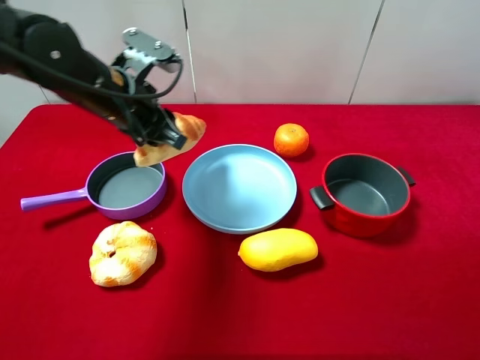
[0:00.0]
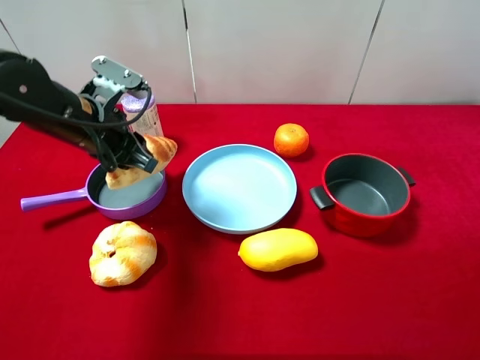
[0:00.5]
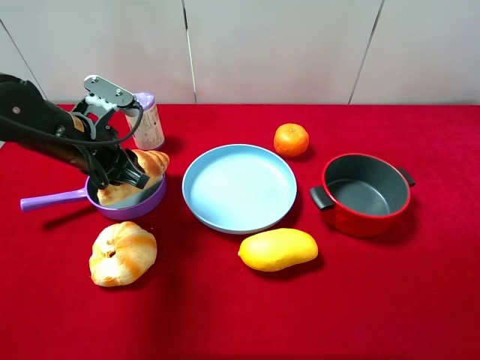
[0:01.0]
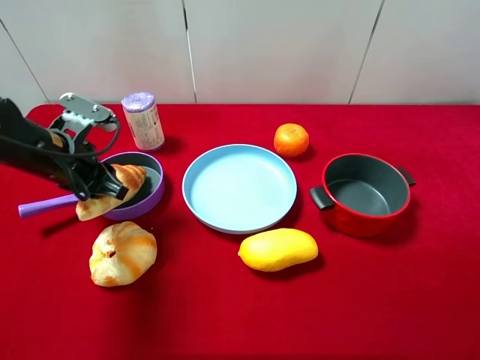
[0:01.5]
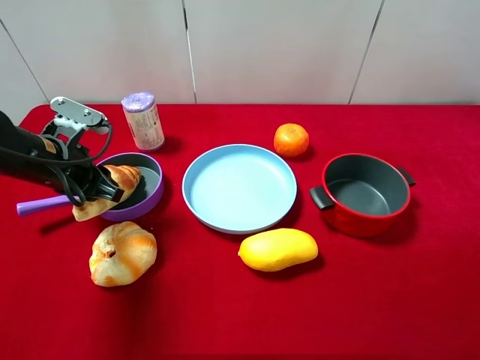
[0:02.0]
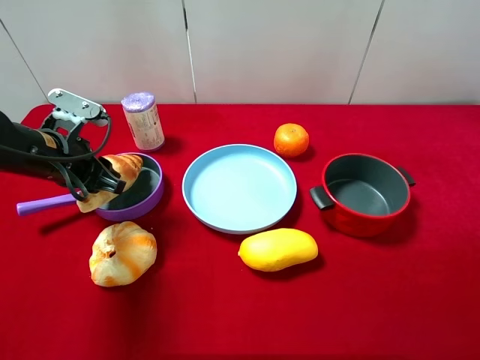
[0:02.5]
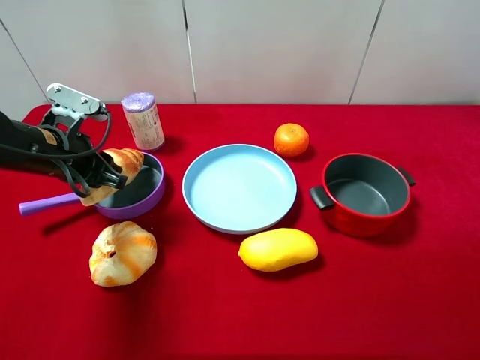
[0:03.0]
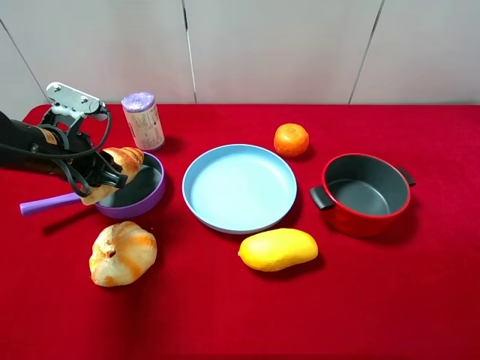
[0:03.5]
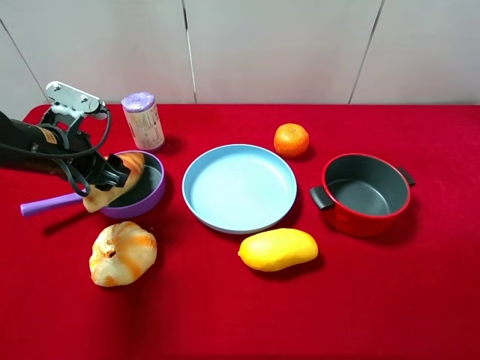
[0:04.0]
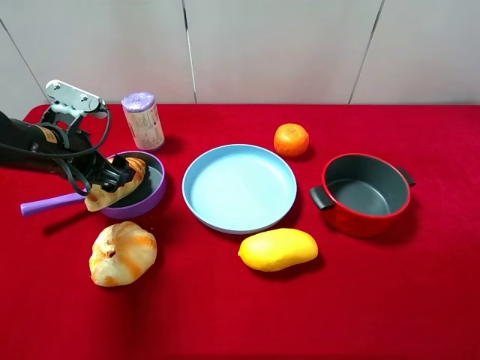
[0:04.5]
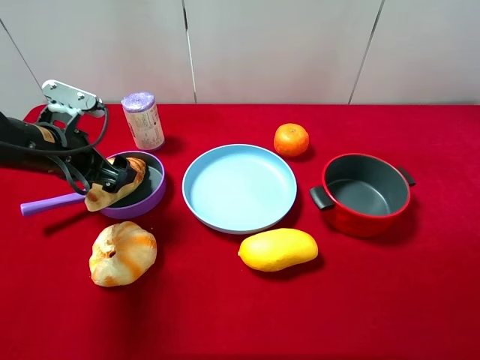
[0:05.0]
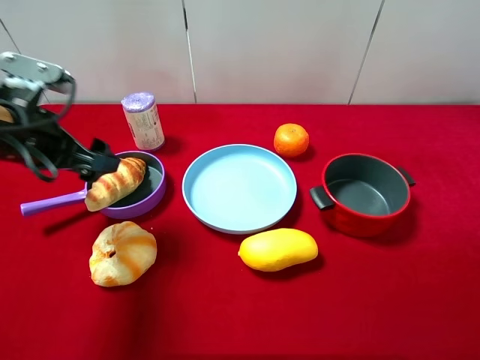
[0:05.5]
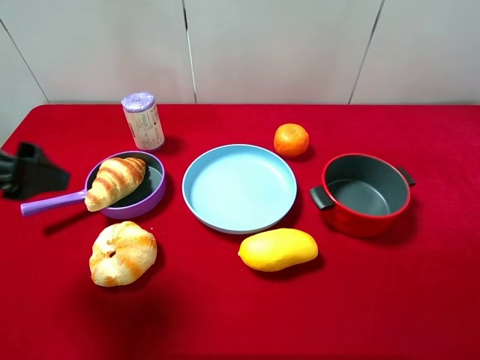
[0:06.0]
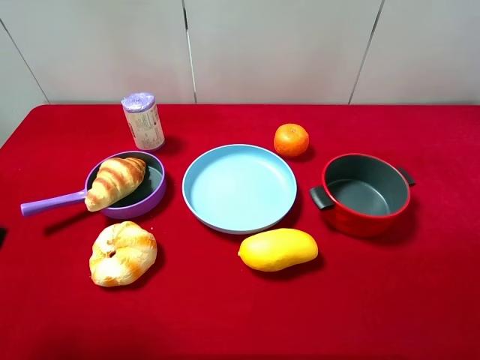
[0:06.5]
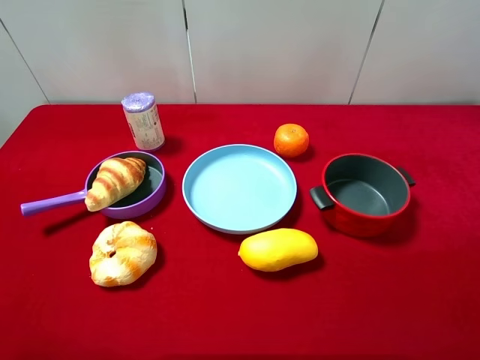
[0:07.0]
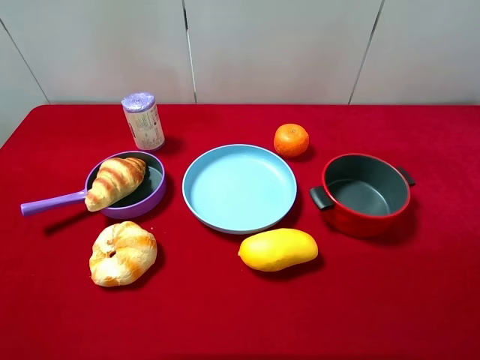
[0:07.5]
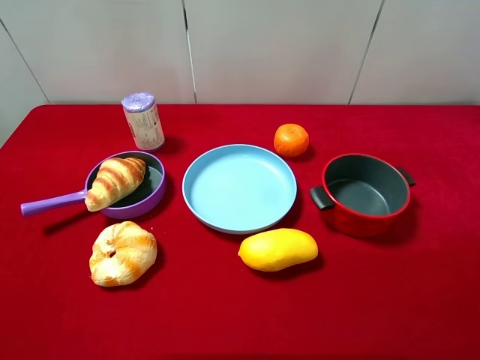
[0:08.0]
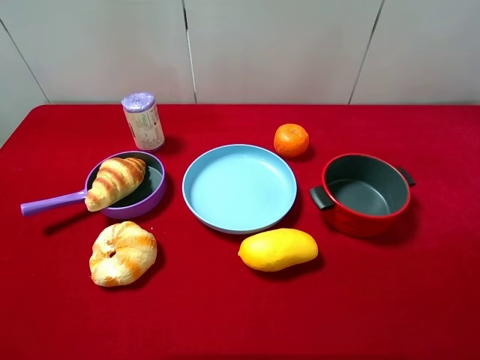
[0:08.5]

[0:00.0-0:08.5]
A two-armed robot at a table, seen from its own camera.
Task of the whole recording: pick up an item with a gripper and place it in a random container on the desktop.
0:00.0 to 0:02.0: The left gripper shifts about 10 cm to the left and downward.
0:02.0 to 0:04.0: The left gripper opens its fingers.
0:04.0 to 0:06.5: The left gripper goes approximately 20 cm backward and upward, and opens up.

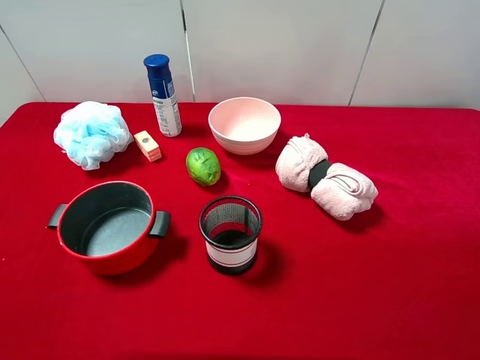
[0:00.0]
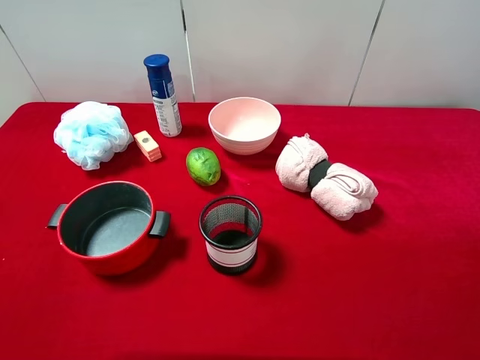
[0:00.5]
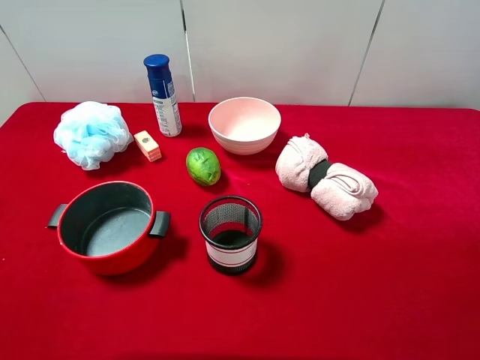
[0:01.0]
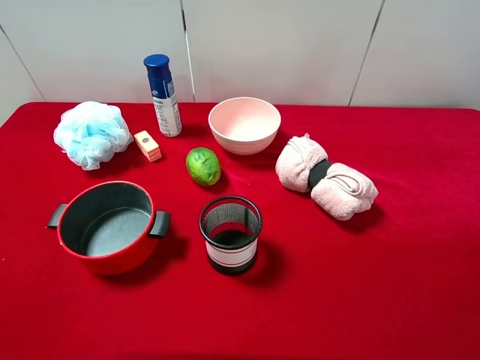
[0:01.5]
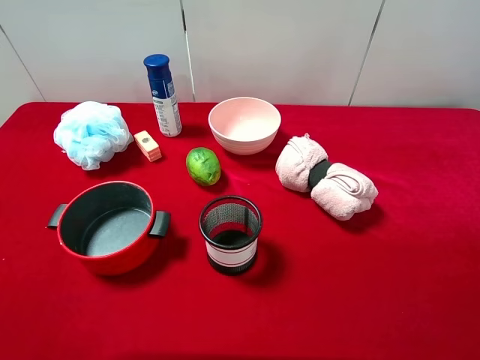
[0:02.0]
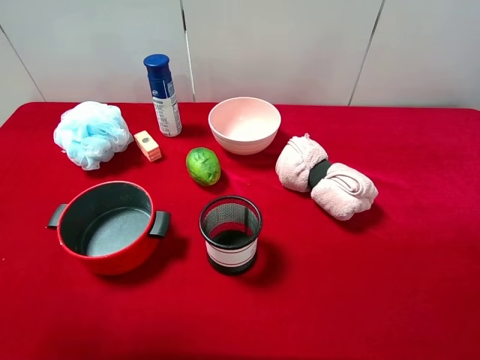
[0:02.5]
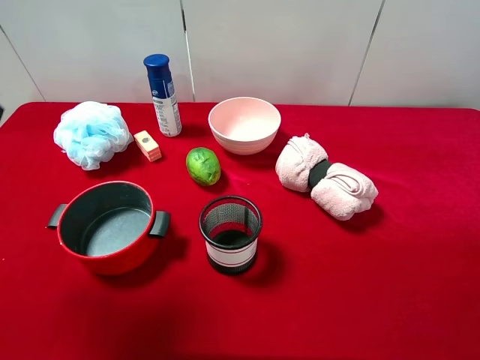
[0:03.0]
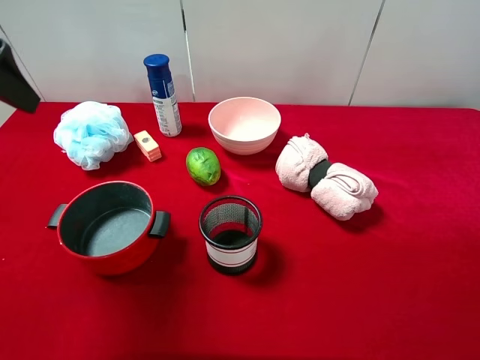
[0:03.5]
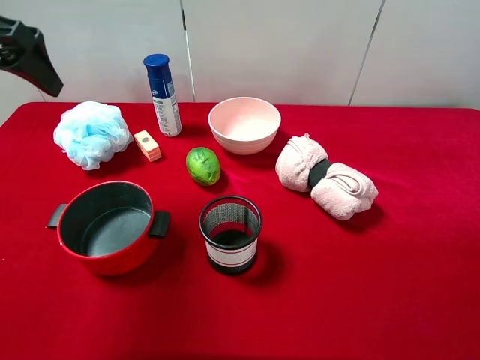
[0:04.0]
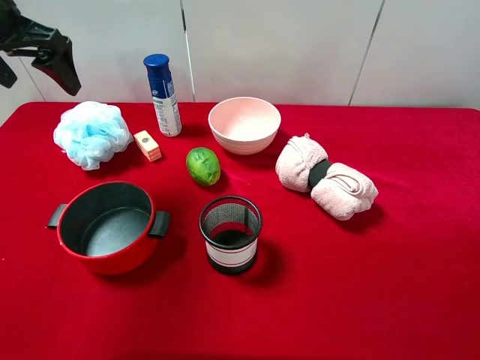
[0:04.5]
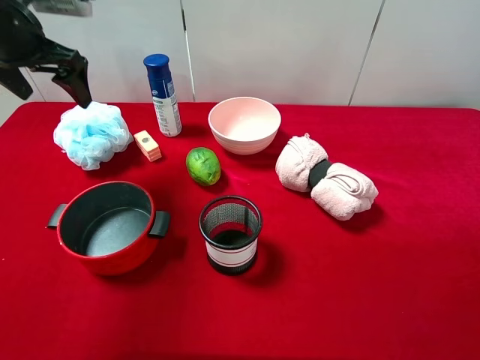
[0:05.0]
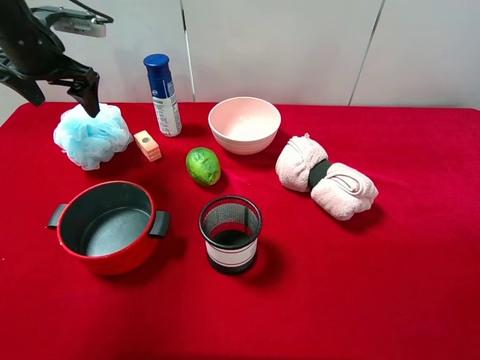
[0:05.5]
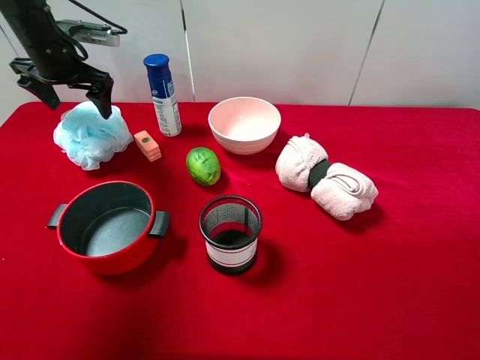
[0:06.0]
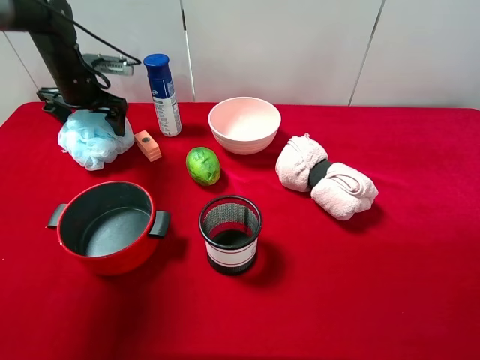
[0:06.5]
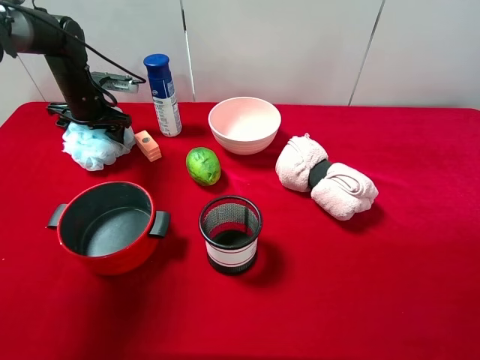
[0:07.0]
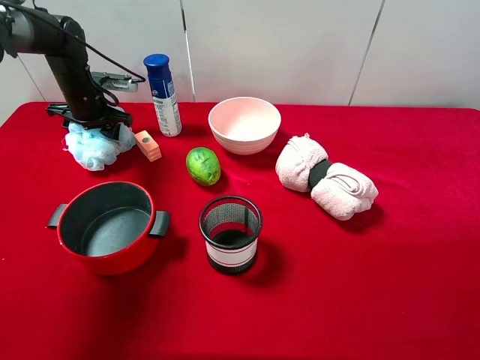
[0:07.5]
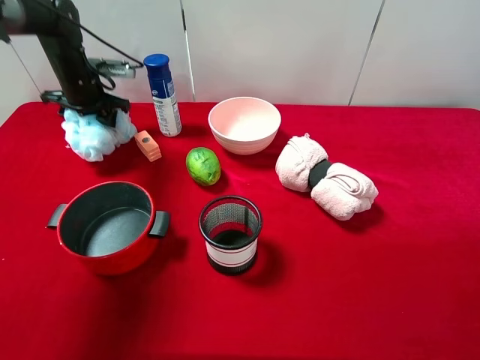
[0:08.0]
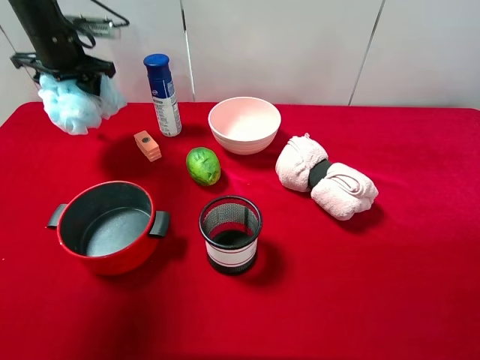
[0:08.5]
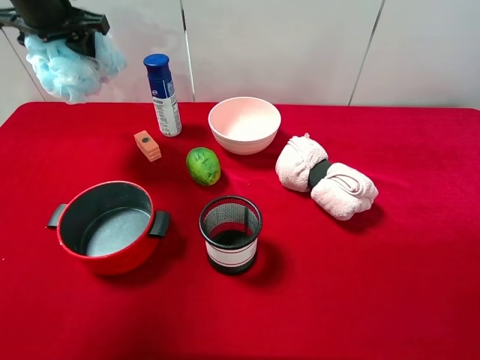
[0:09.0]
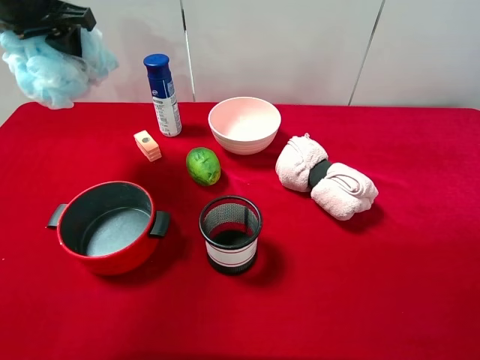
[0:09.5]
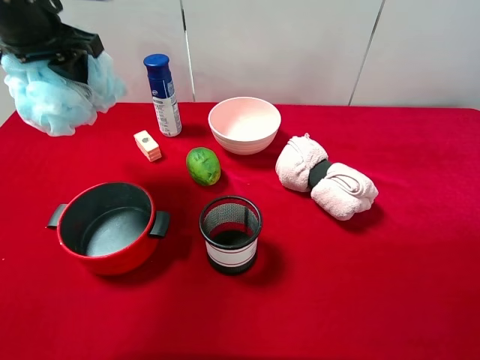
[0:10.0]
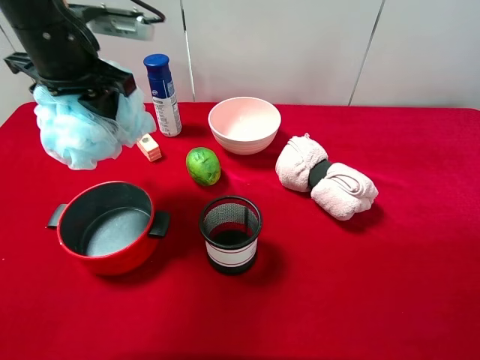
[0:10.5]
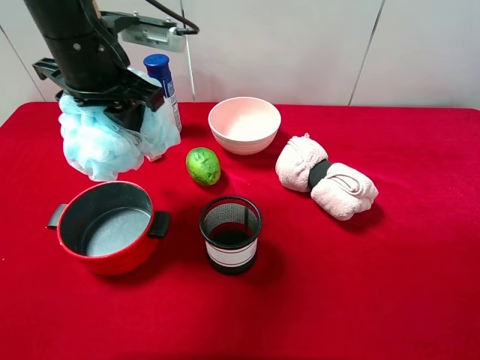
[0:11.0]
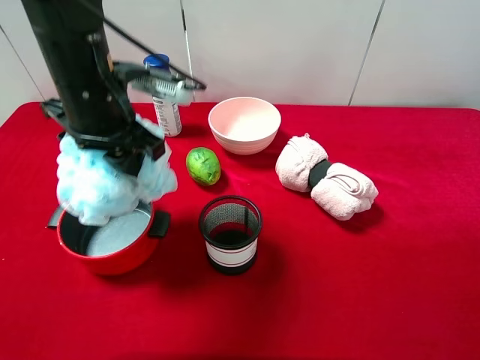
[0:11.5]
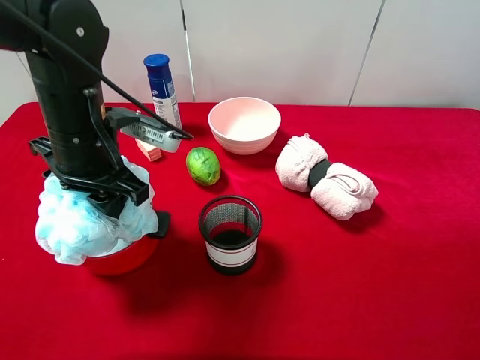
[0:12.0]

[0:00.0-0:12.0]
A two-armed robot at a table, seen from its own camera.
Task of the whole recording: pick up an item with a gripper and place it in a random container on the desktop.
0:02.0 to 0:04.0: The left gripper heads forward, covering about 25 cm.
0:04.0 to 0:06.0: The left gripper moves forward and downward, roughly 20 cm.
0:06.0 to 0:08.0: The left gripper travels downward by some 5 cm, and closes up.
0:08.0 to 0:10.0: The left gripper heads upward and backward, covering roughly 20 cm.
0:10.0 to 0:12.0: The left gripper moves downward, backward and to the right, approximately 15 cm.

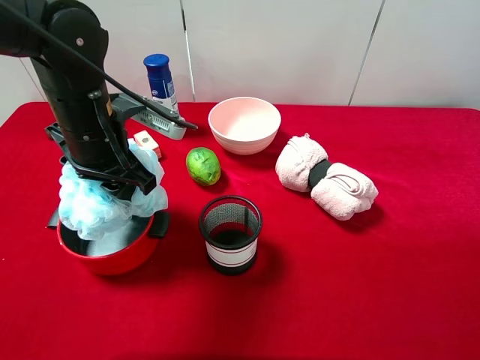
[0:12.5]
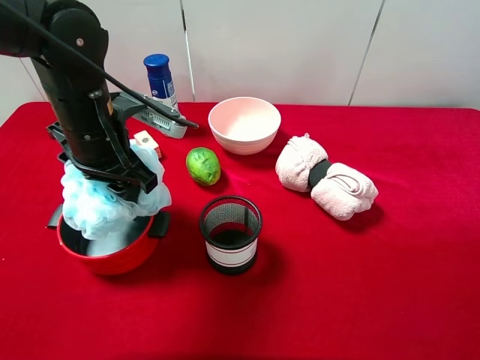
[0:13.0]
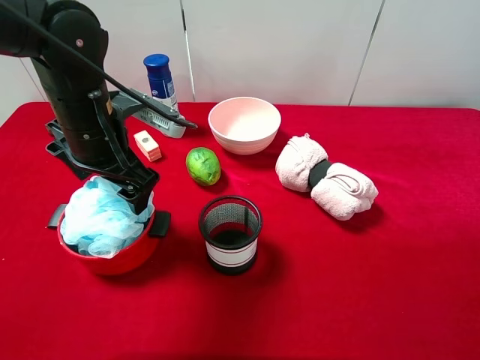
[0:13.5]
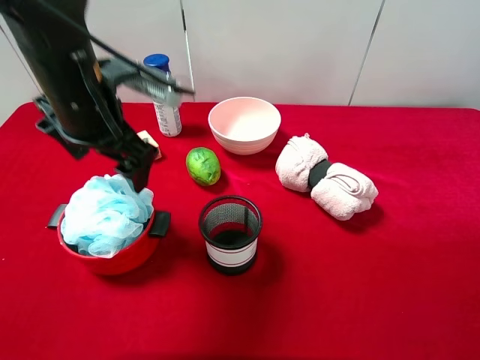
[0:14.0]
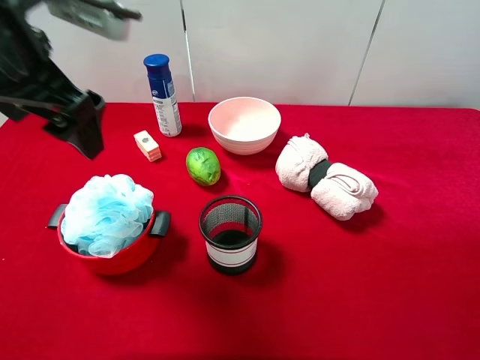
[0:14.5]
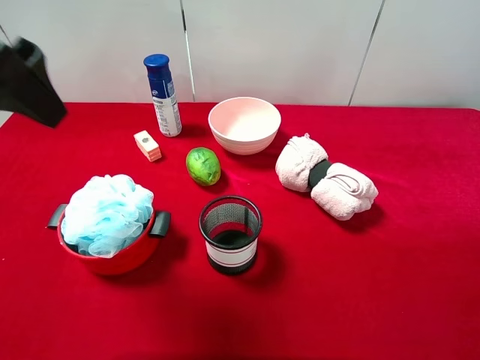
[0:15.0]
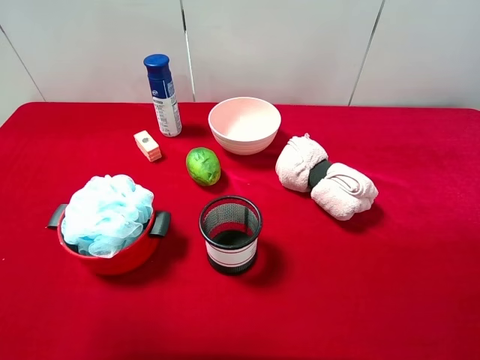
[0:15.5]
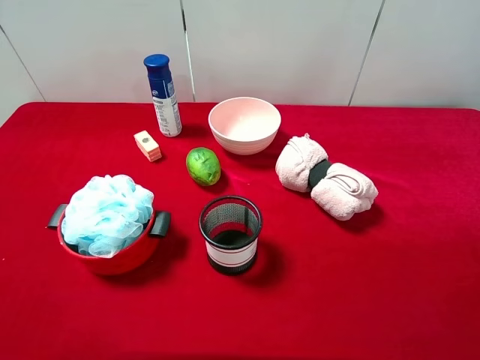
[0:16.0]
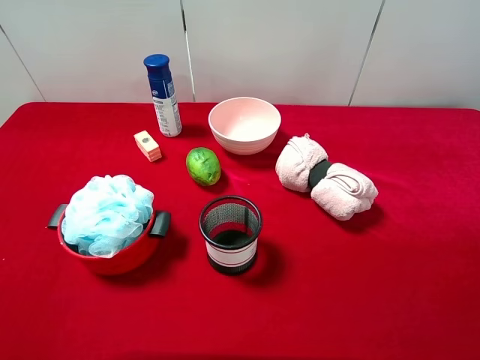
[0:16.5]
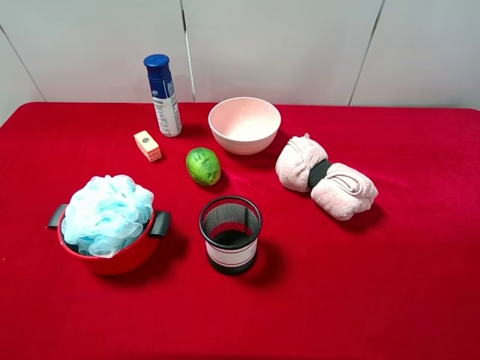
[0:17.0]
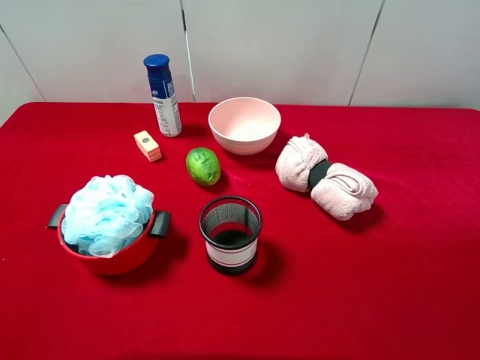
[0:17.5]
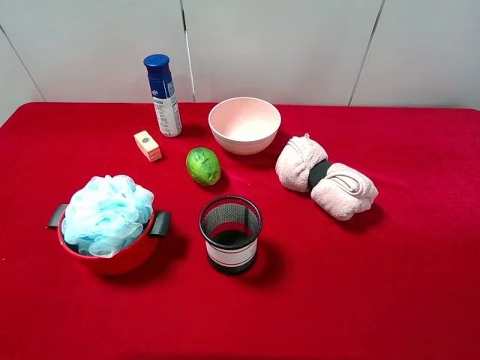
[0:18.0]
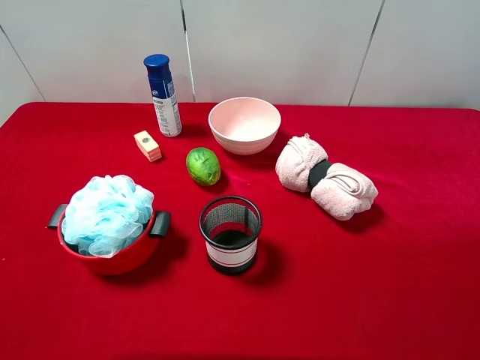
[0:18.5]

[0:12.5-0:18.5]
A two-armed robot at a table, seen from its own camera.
Task of the whole recording: pick up an item with a gripper and place it in a random container on the desktop.
0:12.5 to 0:14.5: The left gripper heads upward, covering some 15 cm, and opens up.
0:14.5 to 0:16.5: The left gripper travels backward and to the left by some 25 cm.
